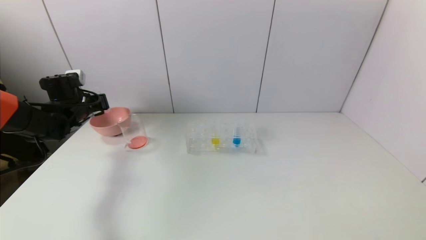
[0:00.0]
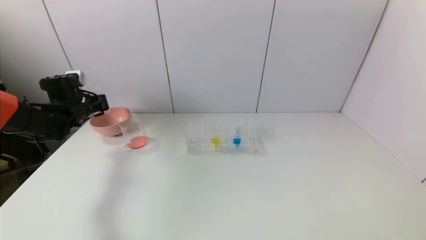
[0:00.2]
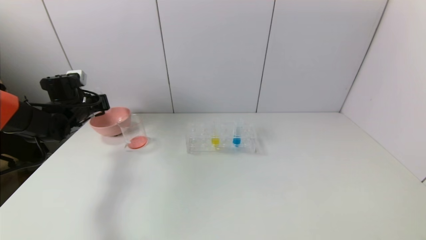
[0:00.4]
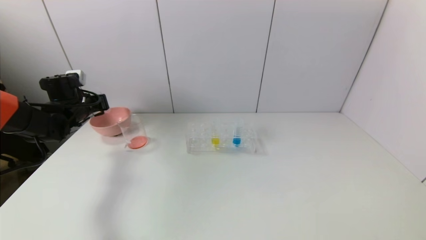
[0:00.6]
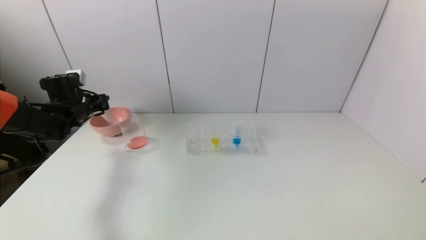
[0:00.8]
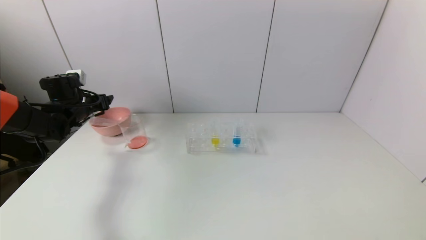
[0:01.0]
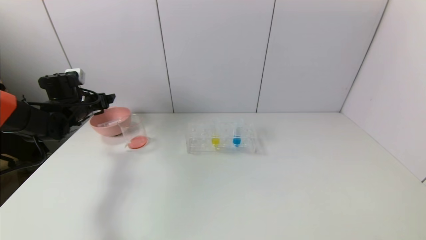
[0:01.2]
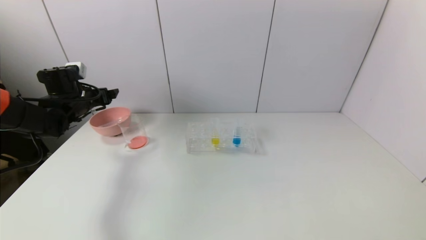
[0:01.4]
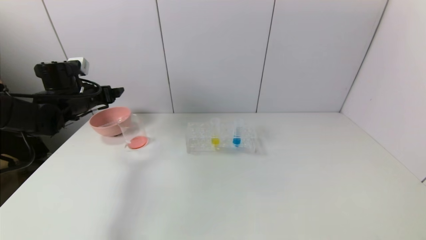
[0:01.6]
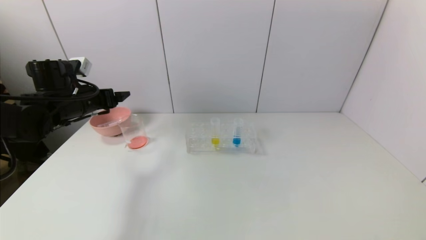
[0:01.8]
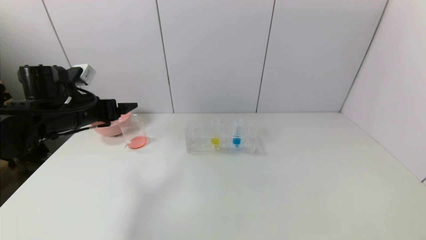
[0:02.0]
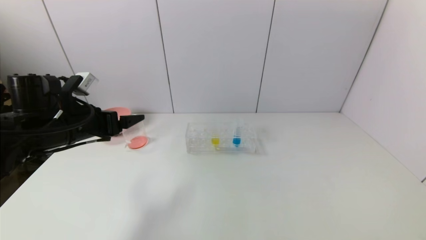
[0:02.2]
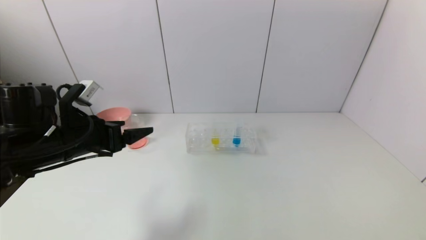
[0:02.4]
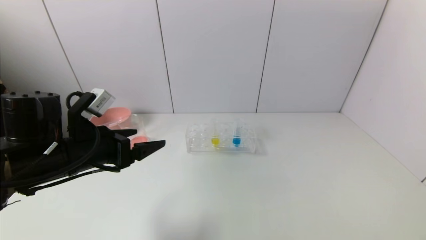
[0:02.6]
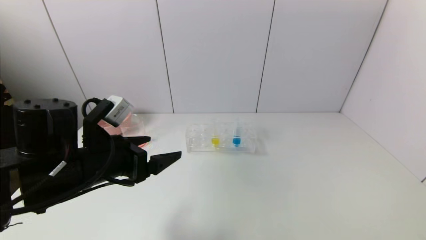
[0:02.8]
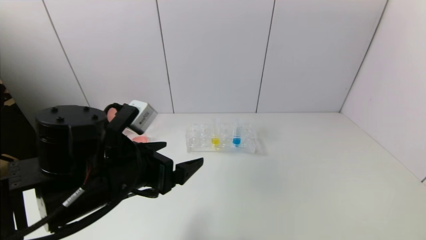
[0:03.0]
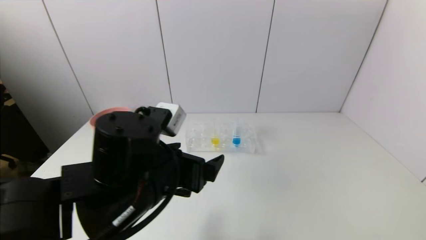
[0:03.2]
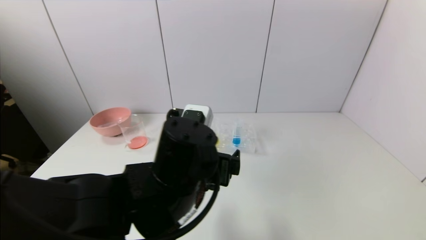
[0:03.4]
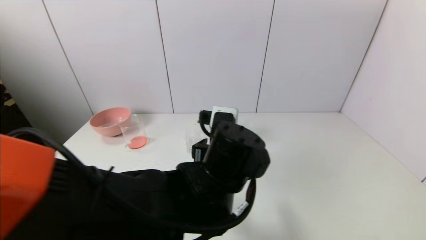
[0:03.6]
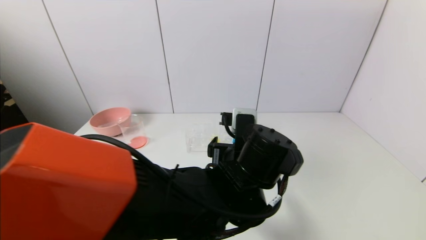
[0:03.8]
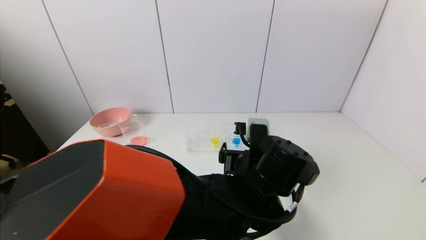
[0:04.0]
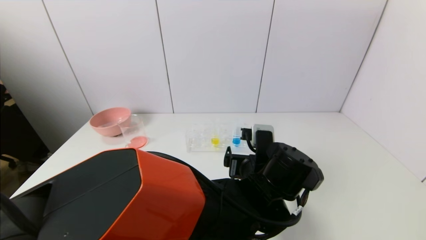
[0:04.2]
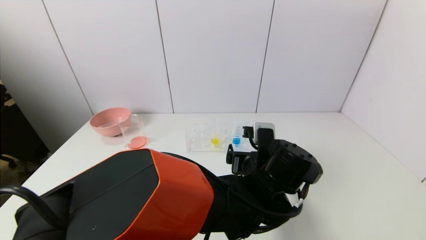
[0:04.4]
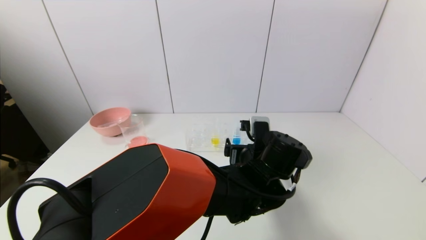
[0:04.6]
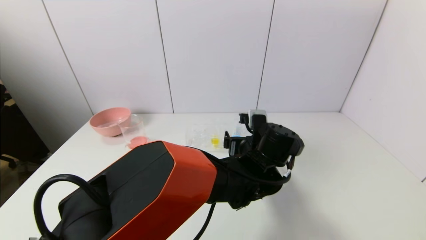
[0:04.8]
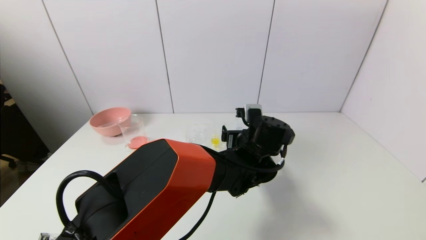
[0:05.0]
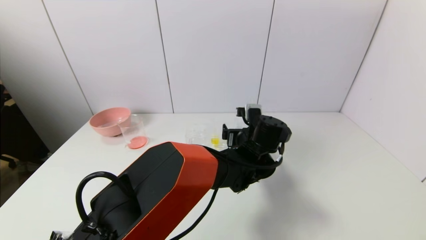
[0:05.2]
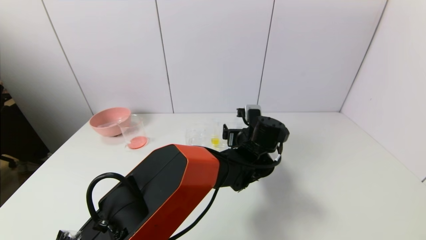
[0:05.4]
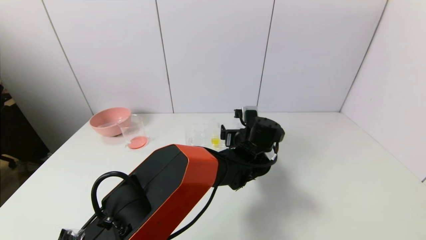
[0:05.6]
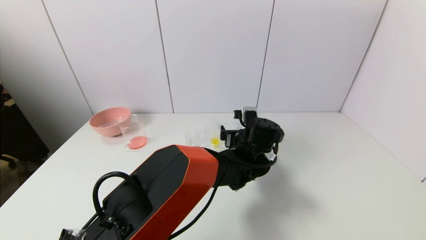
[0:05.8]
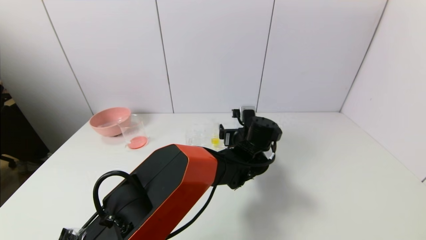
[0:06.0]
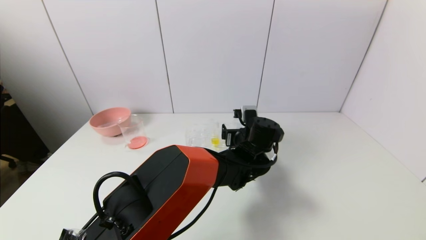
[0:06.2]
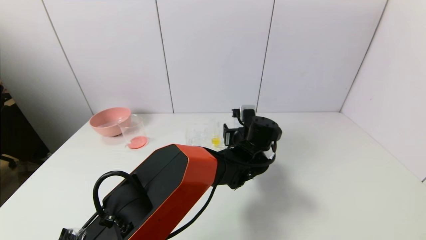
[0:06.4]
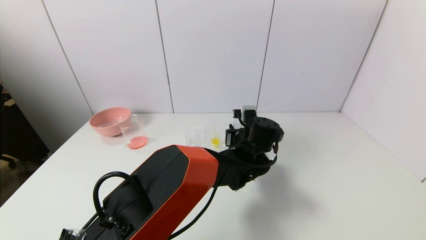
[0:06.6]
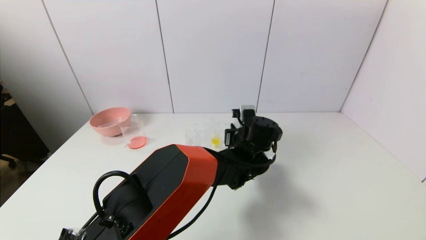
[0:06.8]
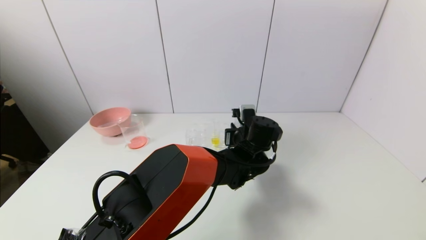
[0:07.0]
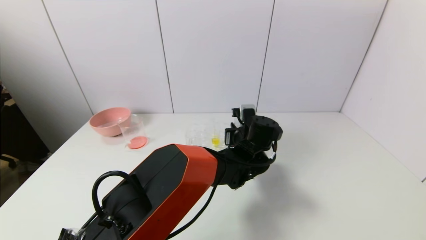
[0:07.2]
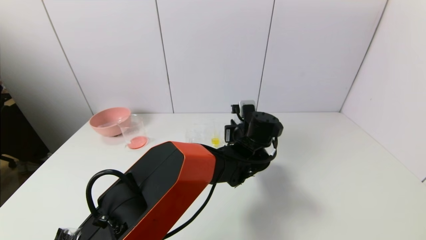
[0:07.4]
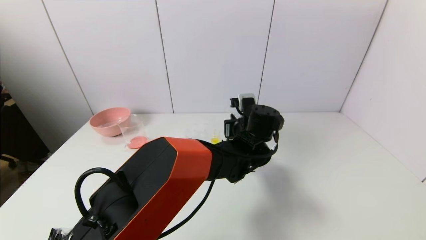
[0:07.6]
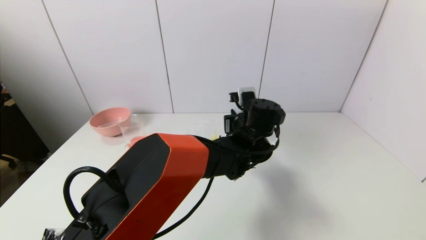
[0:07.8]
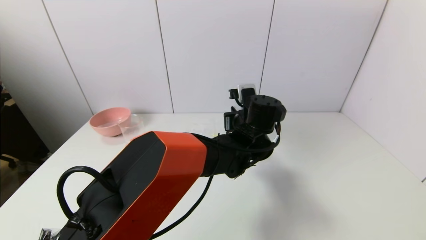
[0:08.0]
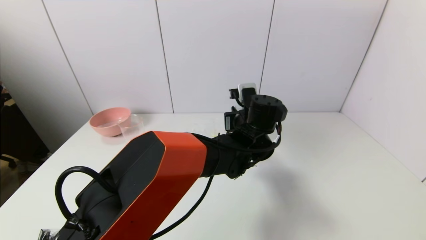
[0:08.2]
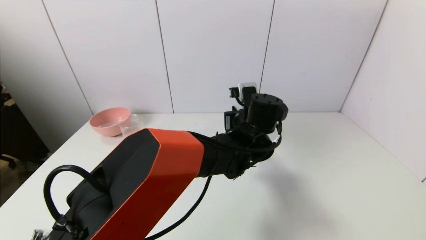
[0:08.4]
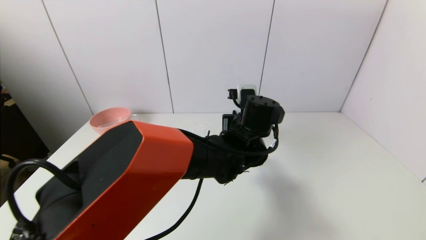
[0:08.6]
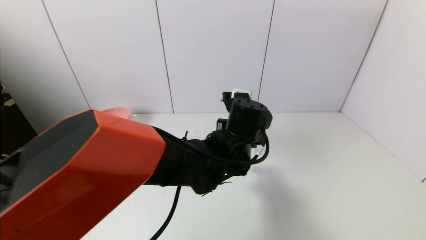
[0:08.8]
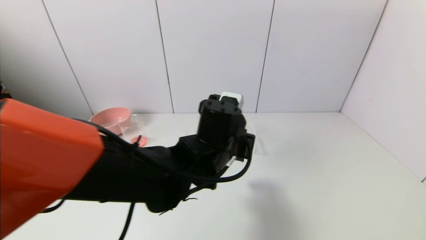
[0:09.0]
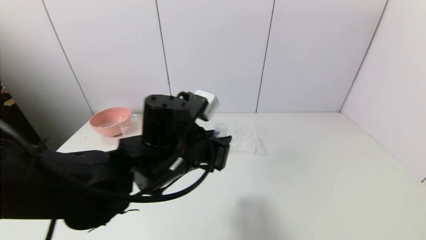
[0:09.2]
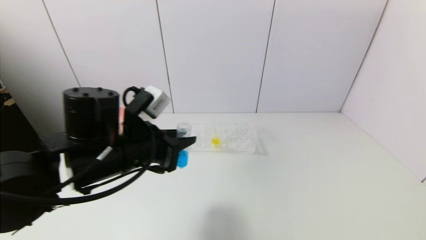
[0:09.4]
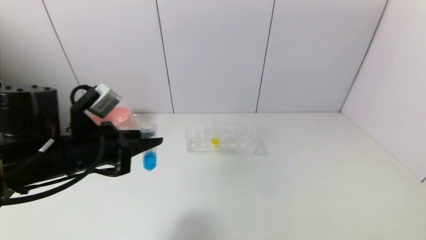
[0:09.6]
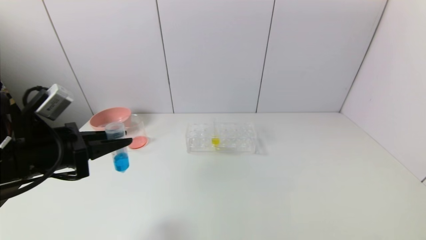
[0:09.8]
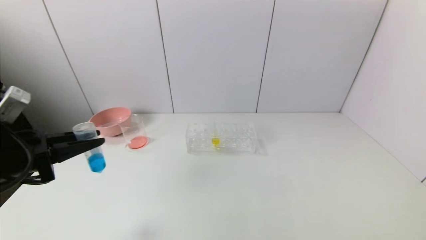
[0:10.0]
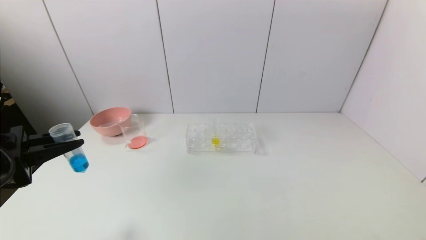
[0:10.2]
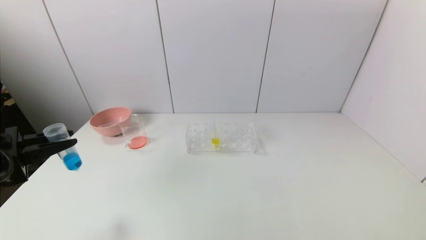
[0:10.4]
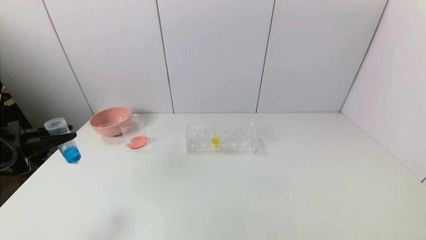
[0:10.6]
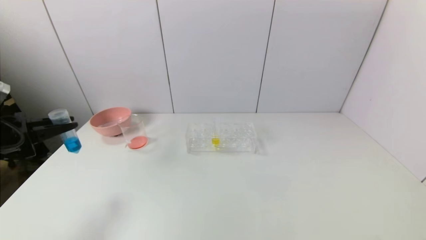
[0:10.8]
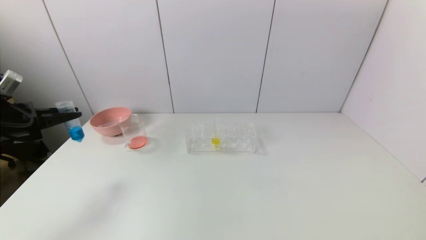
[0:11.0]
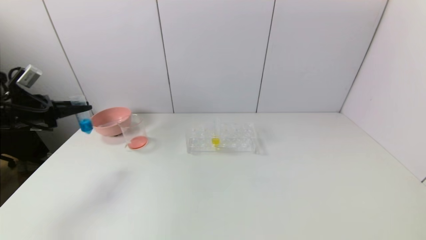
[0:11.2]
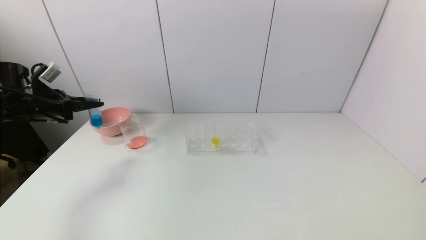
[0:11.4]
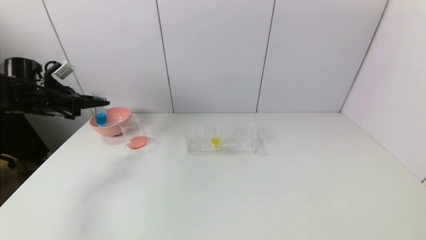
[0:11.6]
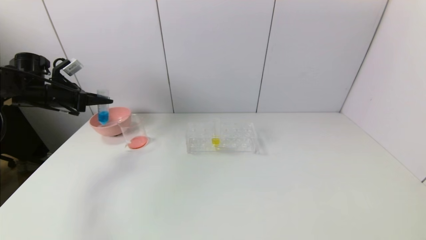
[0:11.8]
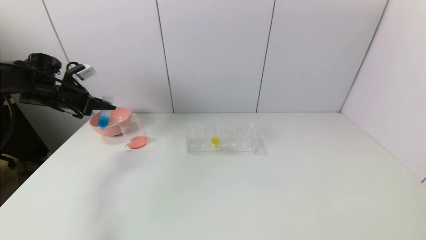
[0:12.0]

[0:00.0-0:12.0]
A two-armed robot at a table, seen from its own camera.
Task of the whole recording: pick up the test tube with red pigment and the test tube with blue pigment by grippers and pour them into the container.
Step, 0:01.0 to 0:06.6: Grasp the blue reagent with the left gripper.
0:00.0 to 0:01.6: The left gripper moves roughly 5 cm, and opens up.
0:01.6 to 0:03.0: The left gripper shifts some 30 cm backward and to the right.
0:03.0 to 0:04.4: The left gripper travels to the right by roughly 25 cm.
0:04.4 to 0:06.0: The left gripper moves forward, some 10 cm.
0:06.0 to 0:07.6: The left gripper closes.
0:07.6 to 0:09.0: The left gripper is displaced to the left and backward by approximately 15 cm.
0:09.0 to 0:10.4: The left gripper is displaced to the left by approximately 40 cm.
0:10.4 to 0:12.0: The left gripper moves forward, some 25 cm.

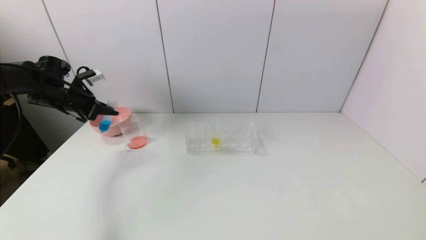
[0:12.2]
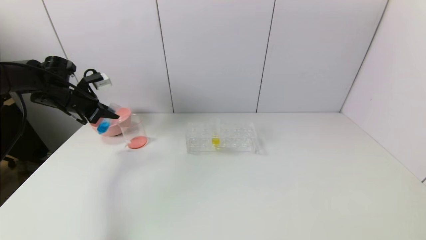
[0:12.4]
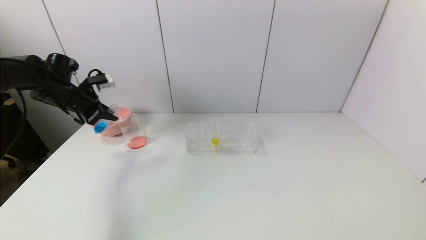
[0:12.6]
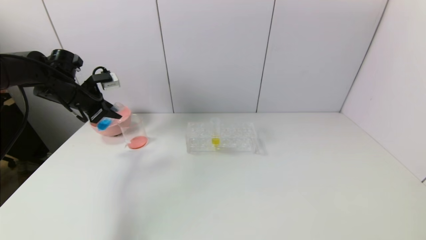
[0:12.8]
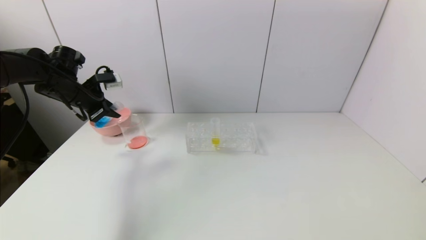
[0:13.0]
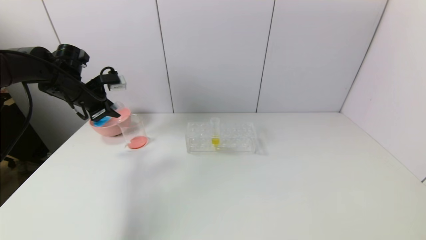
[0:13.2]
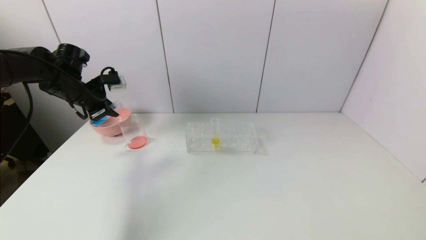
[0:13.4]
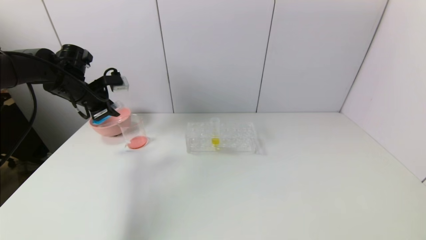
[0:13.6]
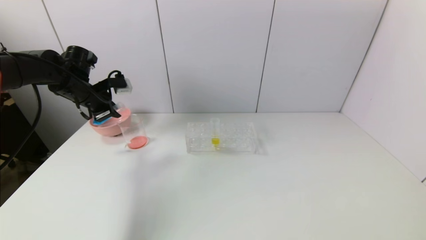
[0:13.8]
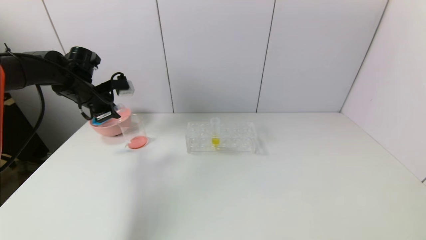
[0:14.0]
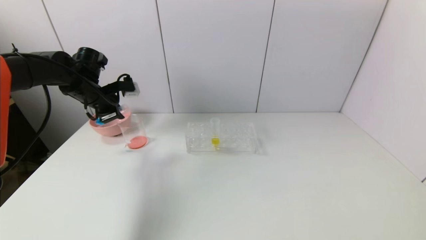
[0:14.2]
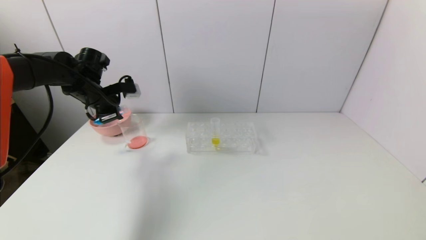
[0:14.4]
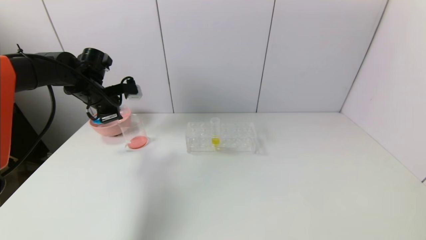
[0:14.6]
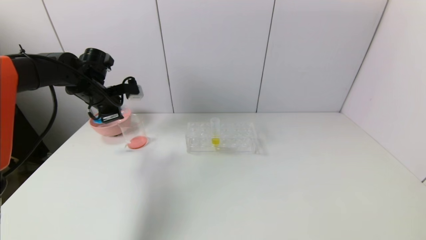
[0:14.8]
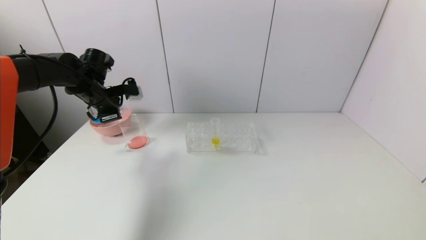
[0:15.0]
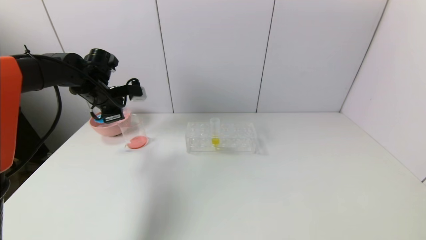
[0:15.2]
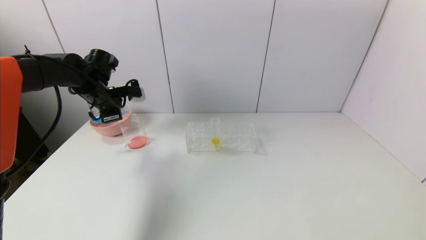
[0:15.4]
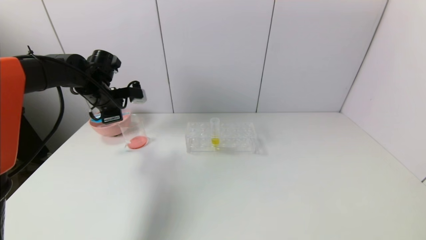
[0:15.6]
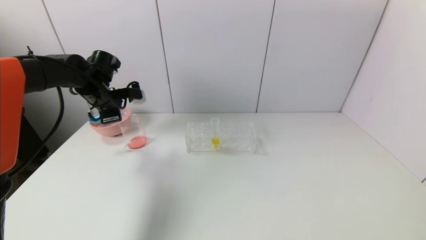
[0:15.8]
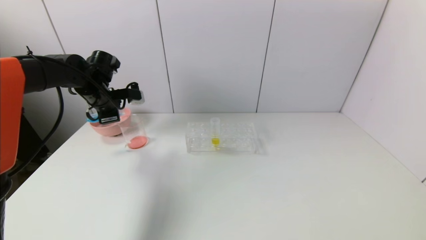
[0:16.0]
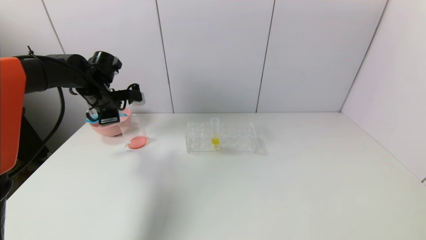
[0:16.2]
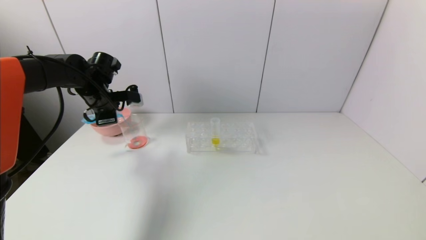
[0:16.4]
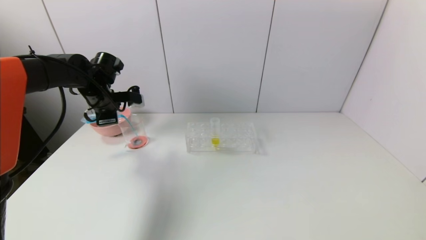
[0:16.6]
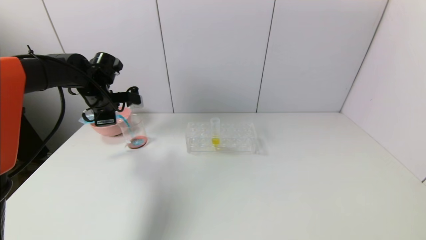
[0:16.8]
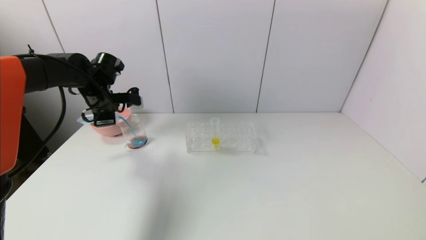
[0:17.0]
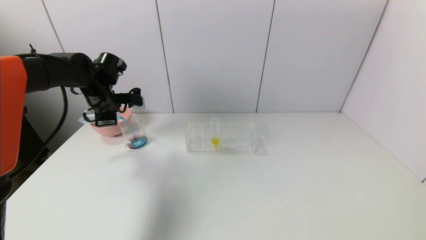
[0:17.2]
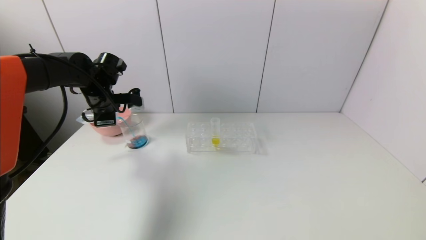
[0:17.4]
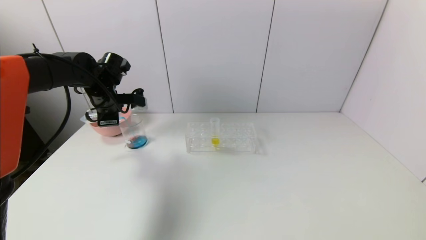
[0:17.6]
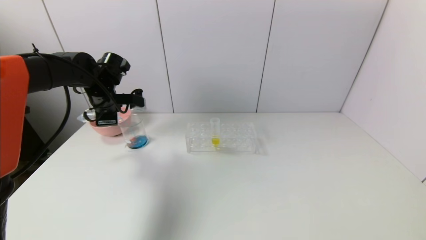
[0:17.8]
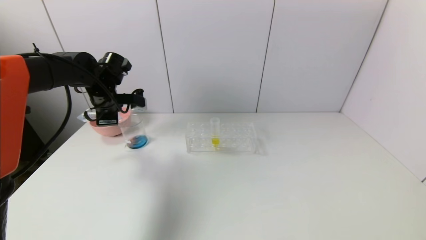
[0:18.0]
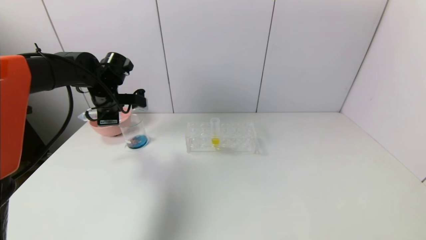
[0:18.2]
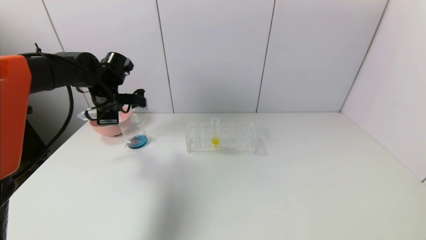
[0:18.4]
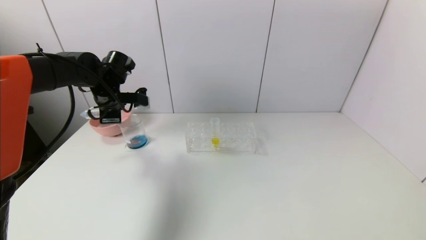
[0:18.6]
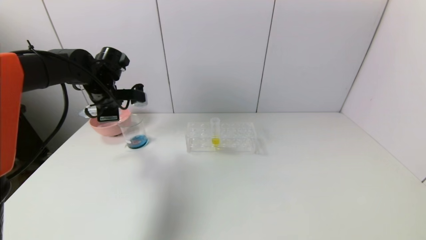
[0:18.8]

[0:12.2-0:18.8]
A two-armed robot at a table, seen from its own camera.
Task of the whole recording: pick up the test tube with red pigment and the test tube with blue pigment by grippers and pour them into the container.
Step, 0:12.2 to 0:18.8: Pour the blue reagent into the graduated cylinder with the left gripper.
0:12.2 to 0:13.8: The left gripper heads to the right, covering some 5 cm.
0:13.8 to 0:15.4: There are only small adjustments of the grippers.
0:15.4 to 0:18.8: The grippers stay close to where they were, moving slightly.
